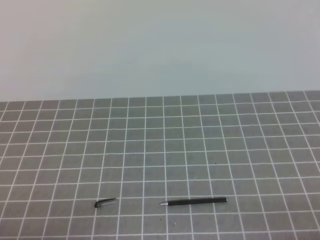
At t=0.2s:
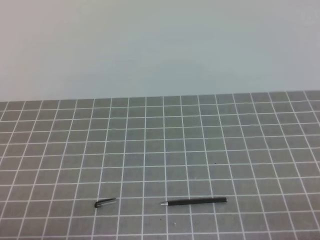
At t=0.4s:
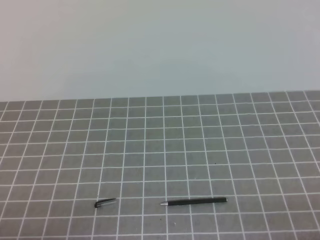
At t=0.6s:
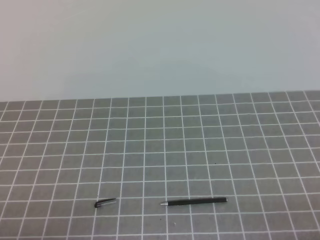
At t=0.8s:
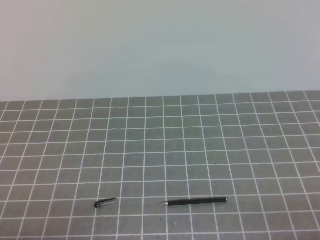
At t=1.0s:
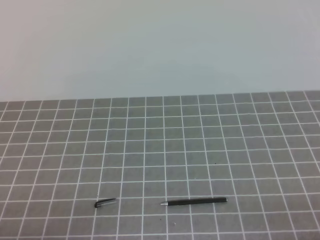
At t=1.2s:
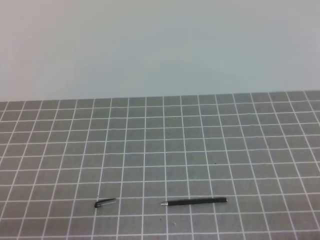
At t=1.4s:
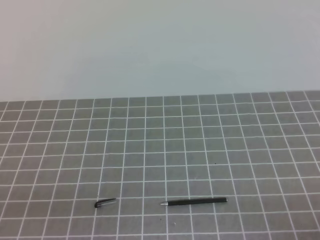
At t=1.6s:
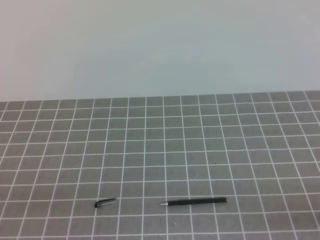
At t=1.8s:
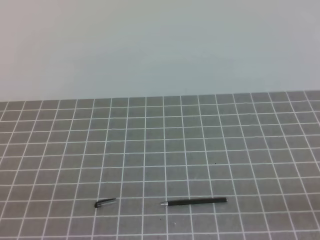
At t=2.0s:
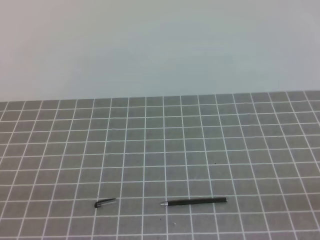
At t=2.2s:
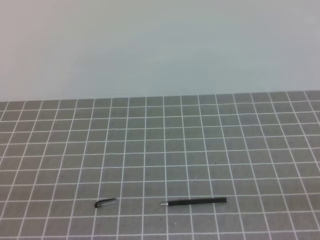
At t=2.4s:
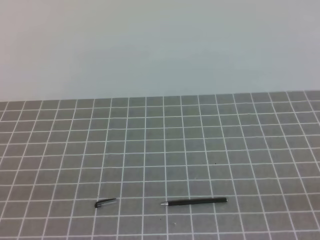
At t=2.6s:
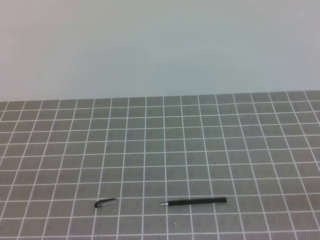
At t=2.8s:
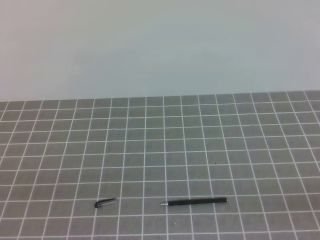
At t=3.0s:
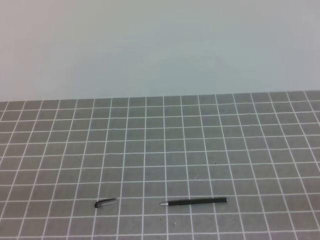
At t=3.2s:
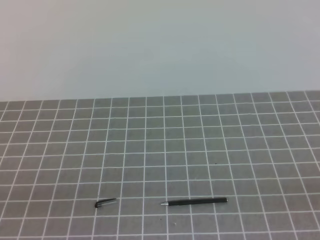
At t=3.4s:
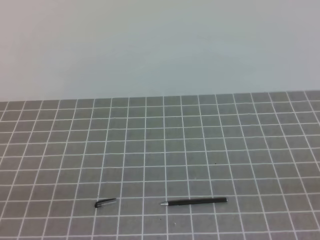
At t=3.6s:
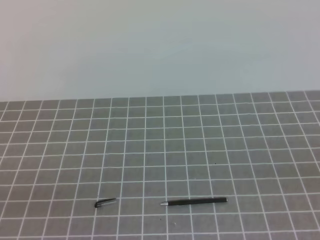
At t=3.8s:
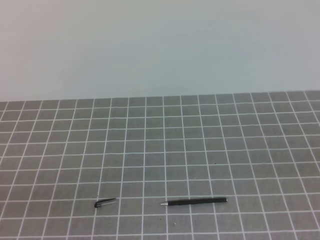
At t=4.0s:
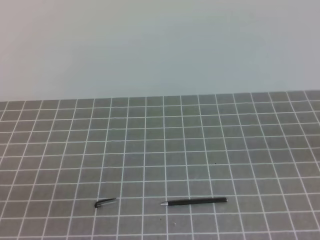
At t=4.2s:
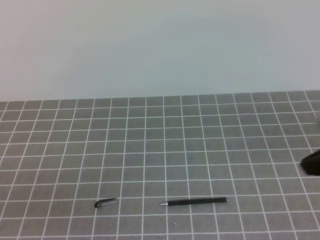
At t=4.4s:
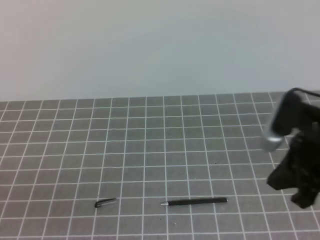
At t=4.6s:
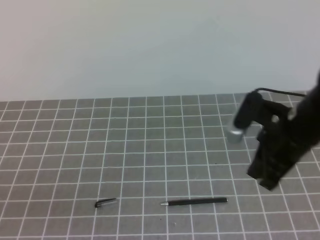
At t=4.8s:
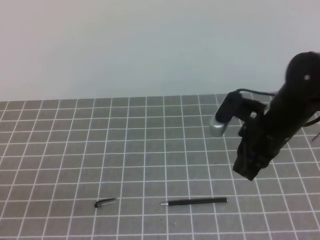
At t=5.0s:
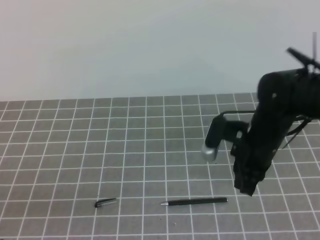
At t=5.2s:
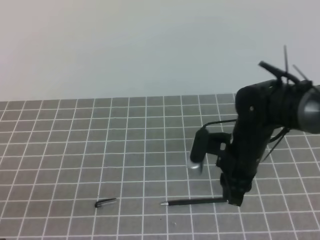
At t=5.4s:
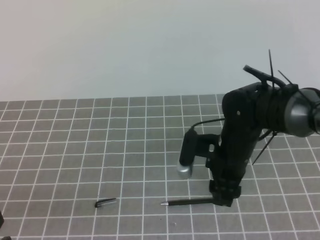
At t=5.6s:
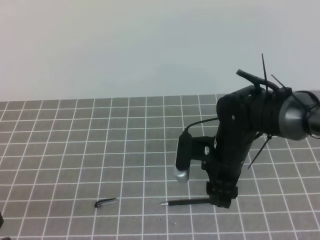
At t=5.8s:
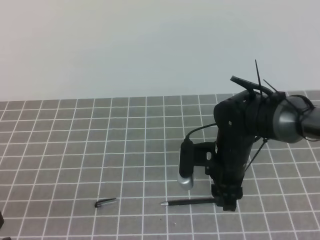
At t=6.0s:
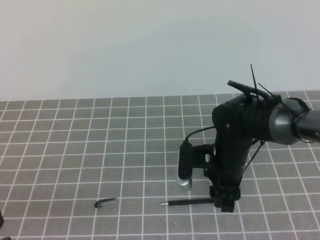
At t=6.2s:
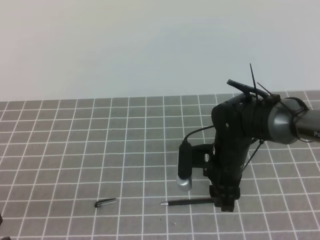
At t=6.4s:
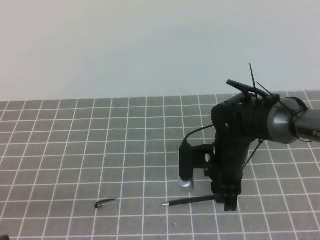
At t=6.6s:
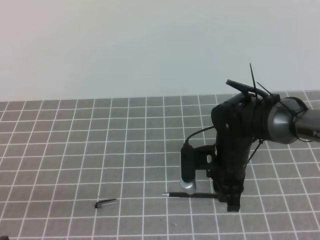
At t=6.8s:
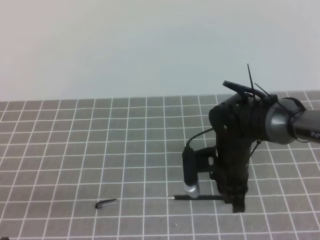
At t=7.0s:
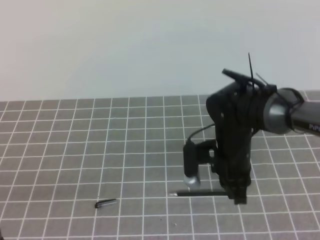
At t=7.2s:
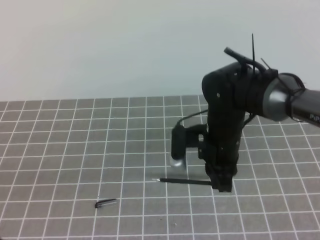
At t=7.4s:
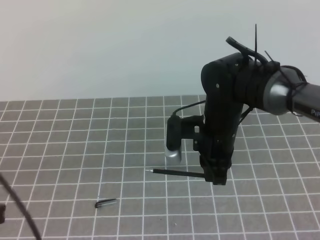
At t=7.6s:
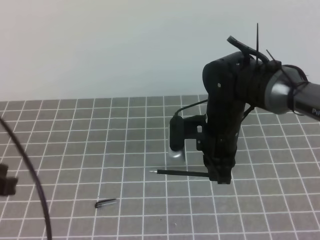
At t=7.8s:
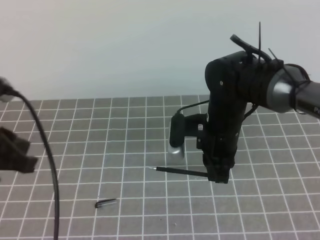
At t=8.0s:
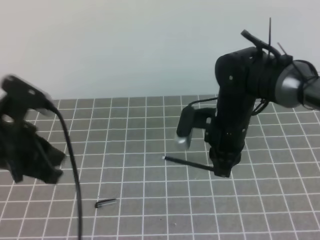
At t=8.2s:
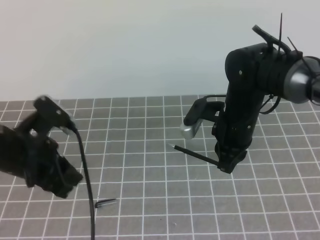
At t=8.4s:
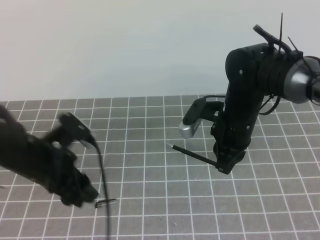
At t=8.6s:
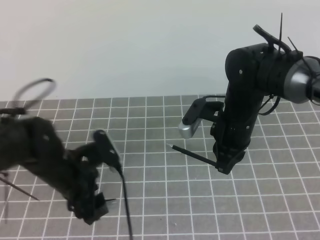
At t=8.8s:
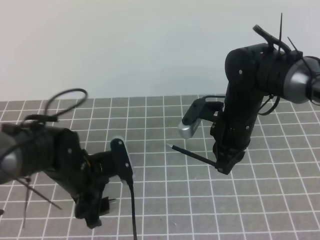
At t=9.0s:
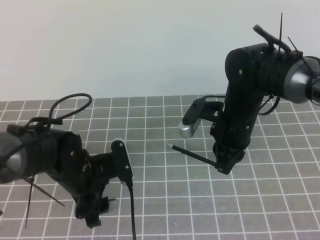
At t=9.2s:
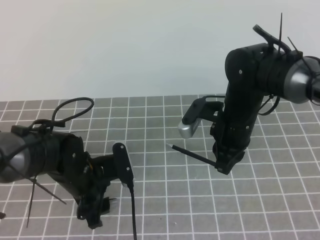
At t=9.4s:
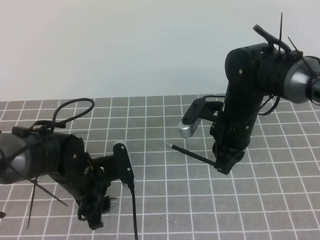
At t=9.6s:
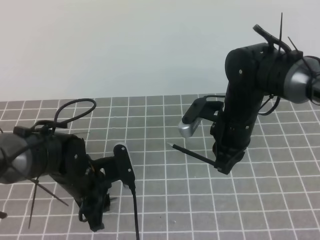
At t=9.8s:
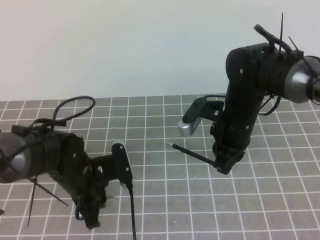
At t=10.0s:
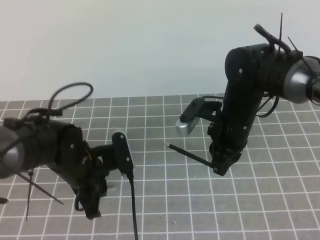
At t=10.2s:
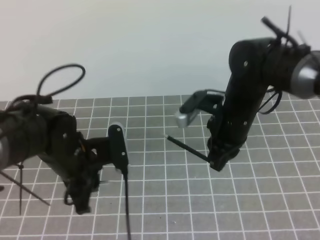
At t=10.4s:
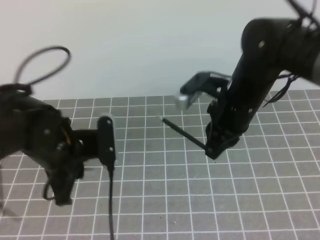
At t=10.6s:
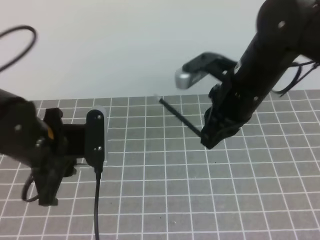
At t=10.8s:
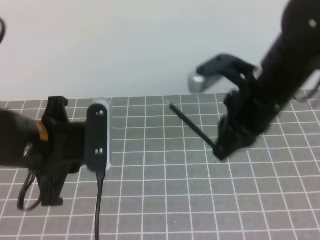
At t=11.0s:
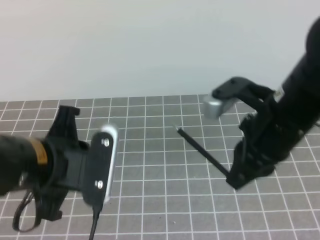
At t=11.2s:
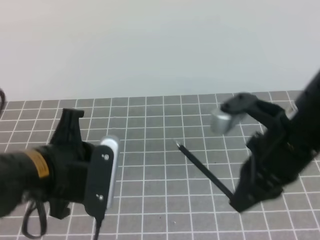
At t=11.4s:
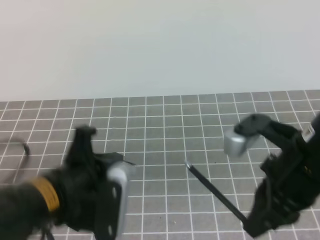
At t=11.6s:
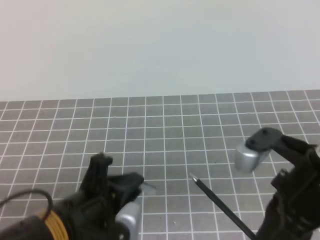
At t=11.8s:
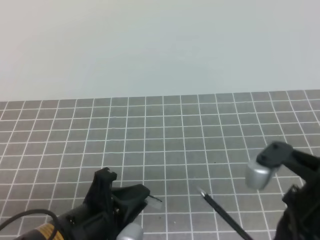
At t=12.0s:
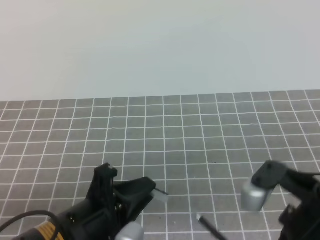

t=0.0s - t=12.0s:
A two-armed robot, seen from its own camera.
Task of the whole recording: on the grey tablecloth, hold the pen cap in one hand and the pen in the other, then cover the pen cap.
t=3.0s - t=4.4s: The right gripper heads forward and to the left, covering roughly 25 cm.
t=4.4s - t=6.0s: The right gripper goes about 20 cm downward, to the left and forward, and opens.
t=6.0s - t=7.6s: The left gripper goes some 10 cm upward and forward. Meanwhile the right gripper travels upward by some 5 cm, and closes up.
t=7.6s - t=9.0s: The left gripper moves downward, forward and to the right, some 25 cm, and opens.
t=9.0s - t=10.4s: Both grippers move upward, roughly 5 cm. The left gripper closes its fingers.
t=10.4s - t=12.0s: The right gripper heads backward, covering approximately 20 cm, while the left gripper goes some 10 cm backward.

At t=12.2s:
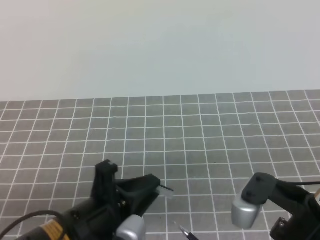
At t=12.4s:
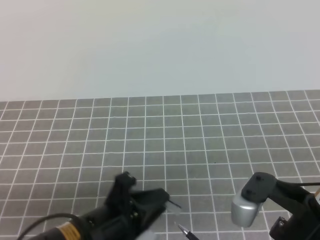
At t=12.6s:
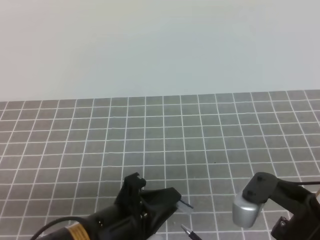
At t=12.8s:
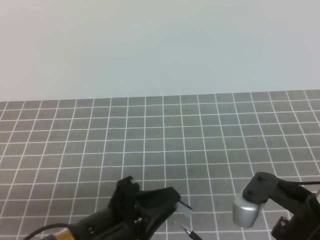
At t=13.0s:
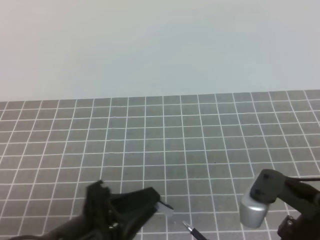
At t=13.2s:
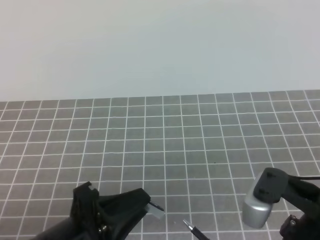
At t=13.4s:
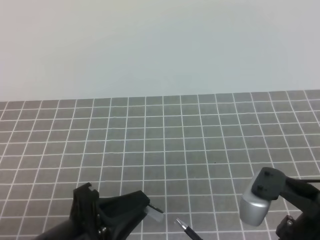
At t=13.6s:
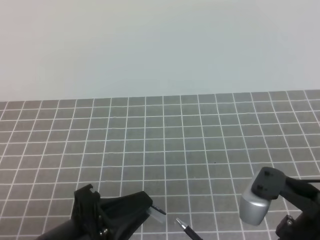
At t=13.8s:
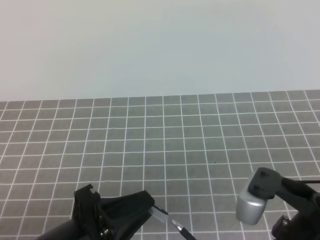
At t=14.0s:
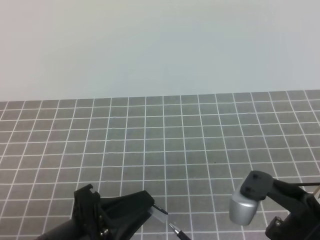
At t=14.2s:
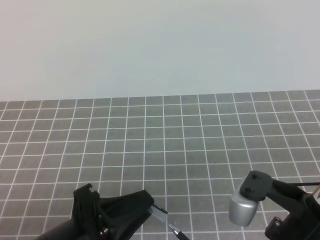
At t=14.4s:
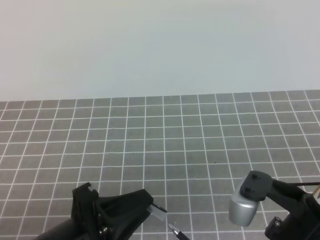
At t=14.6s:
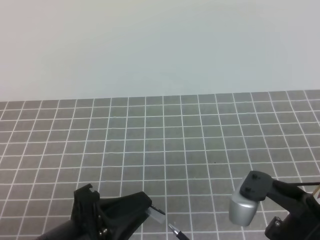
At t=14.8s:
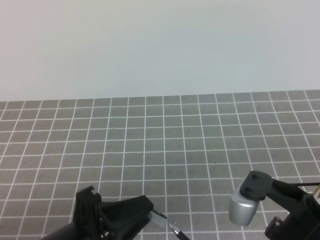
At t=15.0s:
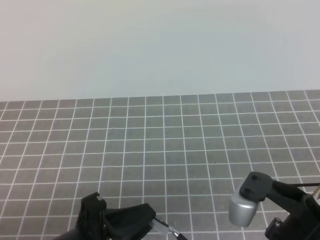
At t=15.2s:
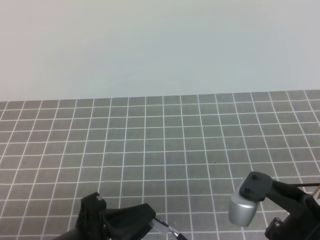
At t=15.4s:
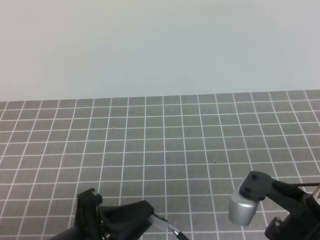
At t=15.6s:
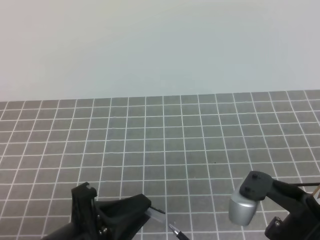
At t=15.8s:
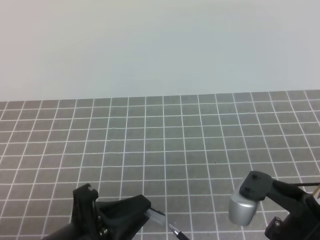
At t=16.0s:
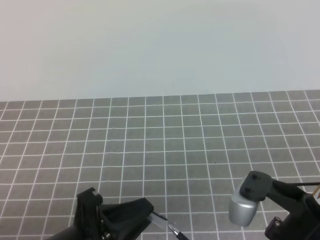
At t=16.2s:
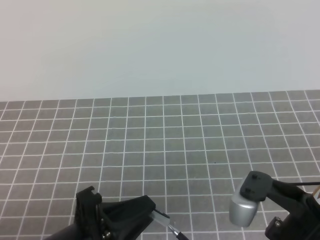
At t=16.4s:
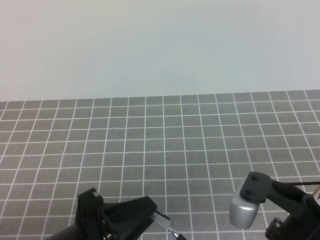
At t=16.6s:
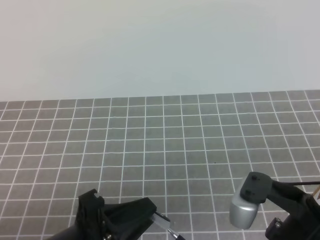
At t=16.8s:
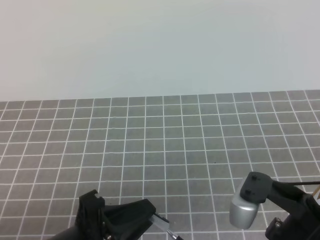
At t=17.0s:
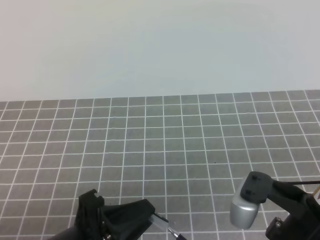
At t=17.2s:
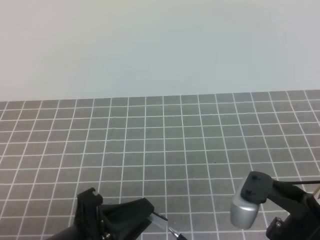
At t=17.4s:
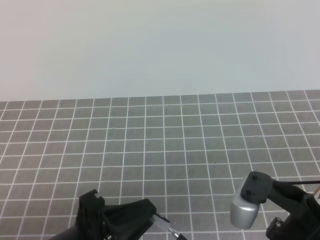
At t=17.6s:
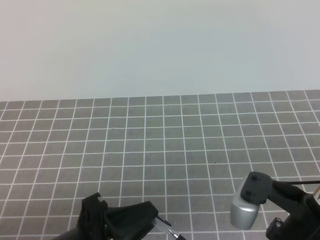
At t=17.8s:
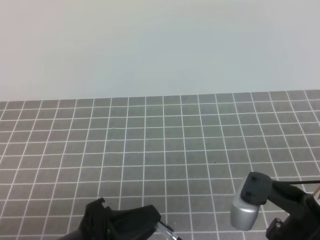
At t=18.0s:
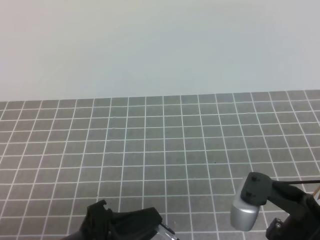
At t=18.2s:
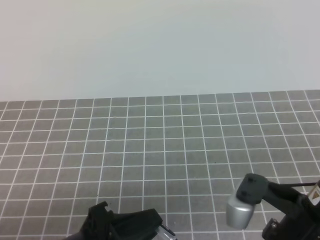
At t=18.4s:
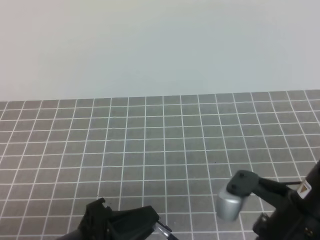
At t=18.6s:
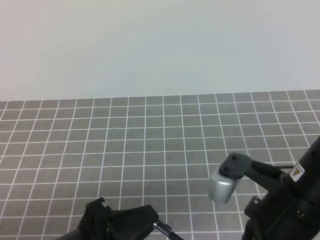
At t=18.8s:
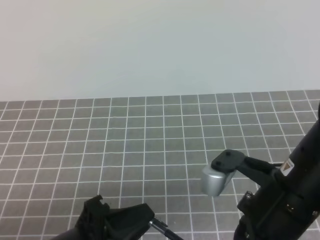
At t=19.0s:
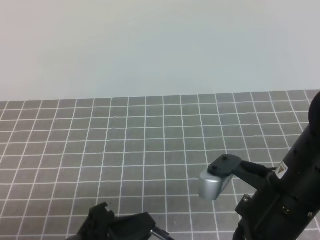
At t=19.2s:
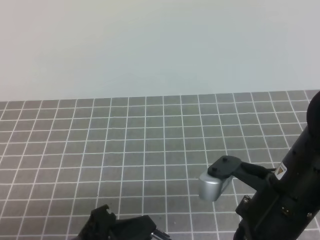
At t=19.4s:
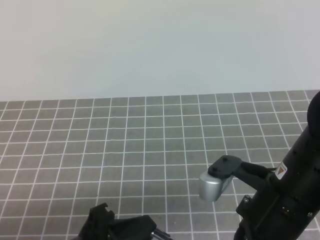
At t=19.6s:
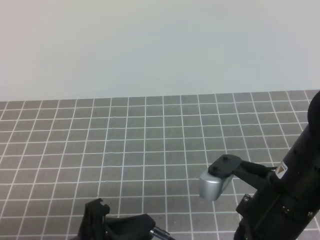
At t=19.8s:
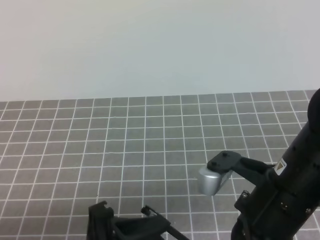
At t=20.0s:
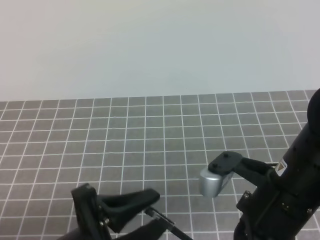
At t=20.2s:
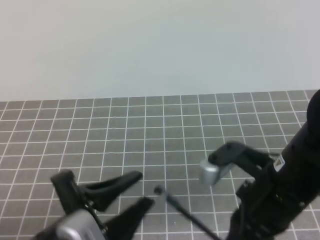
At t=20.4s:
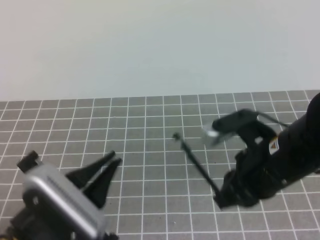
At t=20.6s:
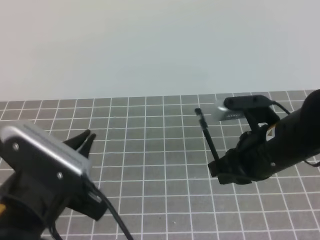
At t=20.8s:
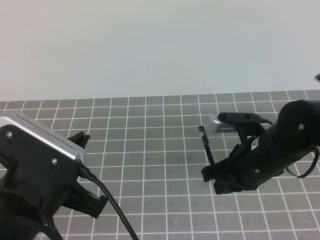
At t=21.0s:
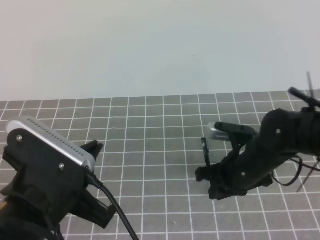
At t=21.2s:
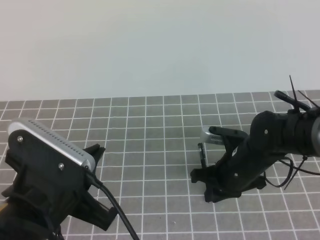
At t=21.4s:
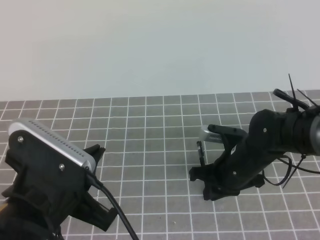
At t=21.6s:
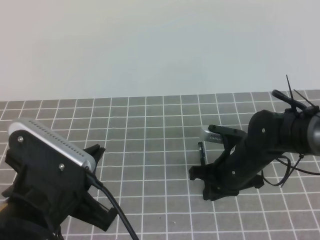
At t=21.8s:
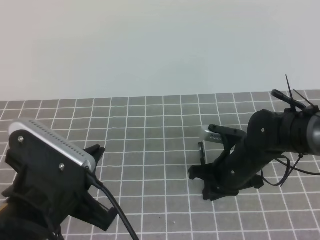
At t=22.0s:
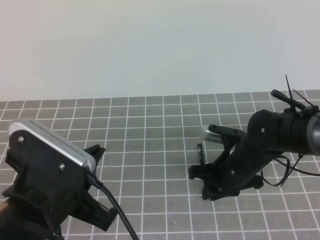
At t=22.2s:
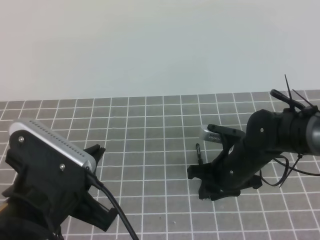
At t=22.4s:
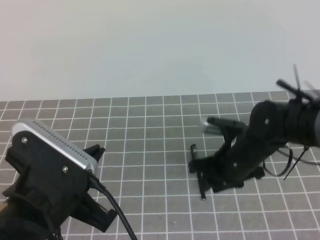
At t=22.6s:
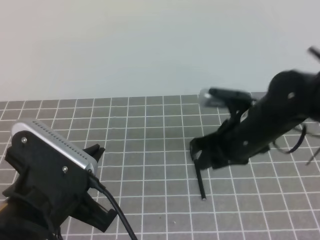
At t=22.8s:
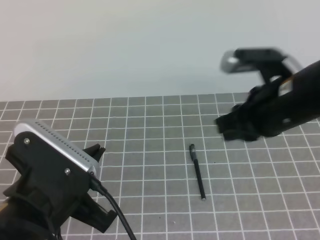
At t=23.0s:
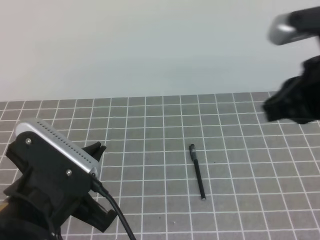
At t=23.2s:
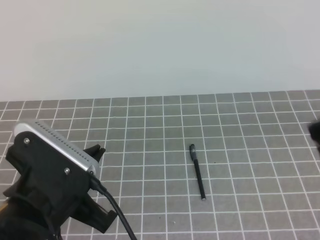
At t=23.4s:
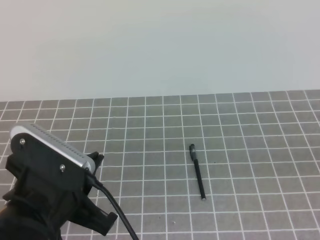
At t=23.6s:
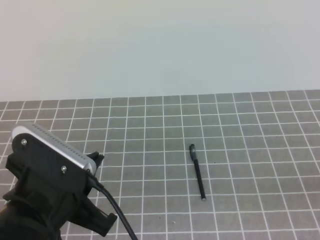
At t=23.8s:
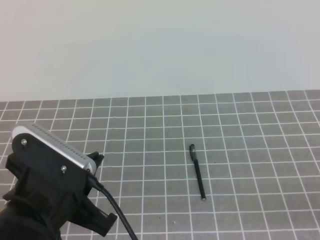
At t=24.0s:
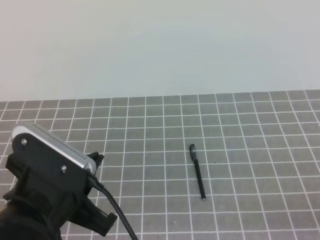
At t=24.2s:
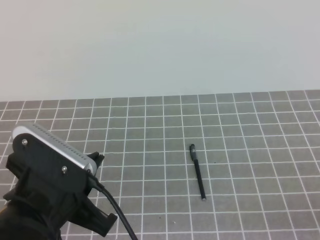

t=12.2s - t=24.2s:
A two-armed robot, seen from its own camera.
Task of the whole recording: on the grey tablecloth, hold the pen cap in one hand and the pen in the other, then cover the pen cap.
t=12.2s - t=18.2s: The grippers stay close to where they were, moving slightly.
t=18.2s - t=19.8s: The left gripper opens its fingers.
t=19.8s - t=21.2s: The right gripper is displaced forward and downward by some 20 cm; the left gripper changes place by approximately 5 cm, and closes its fingers.
t=21.2s - t=22.6s: The right gripper heads upward, covering some 10 cm, and opens up.
t=22.6s - t=24.2s: The right gripper shifts roughly 30 cm backward and to the right, and closes its fingers.
